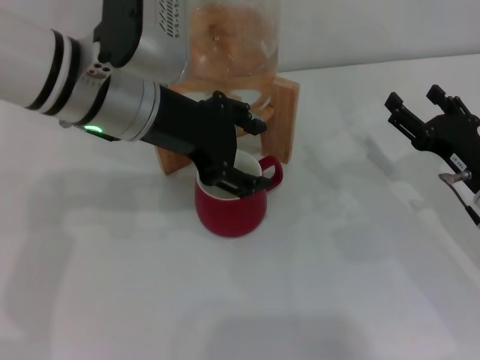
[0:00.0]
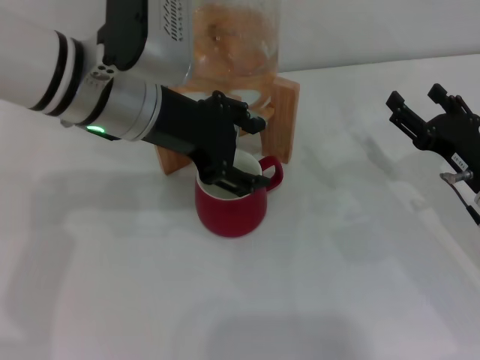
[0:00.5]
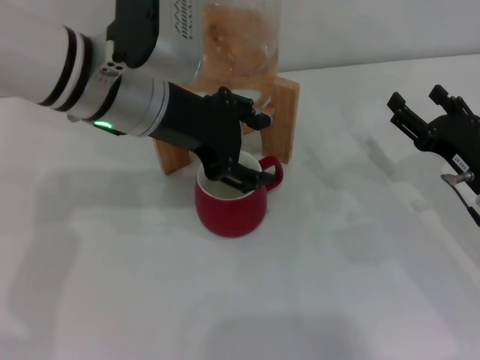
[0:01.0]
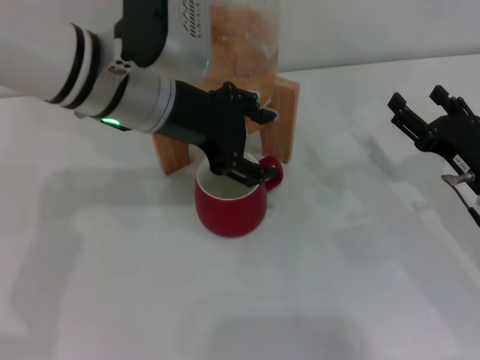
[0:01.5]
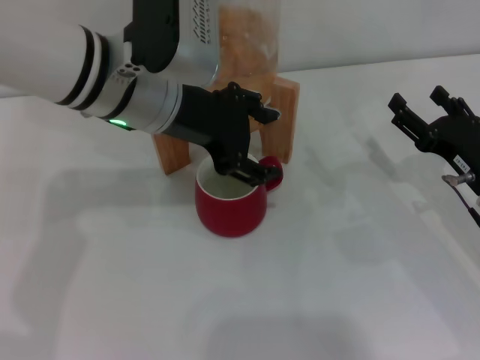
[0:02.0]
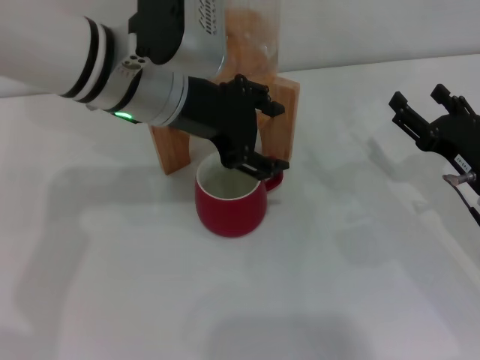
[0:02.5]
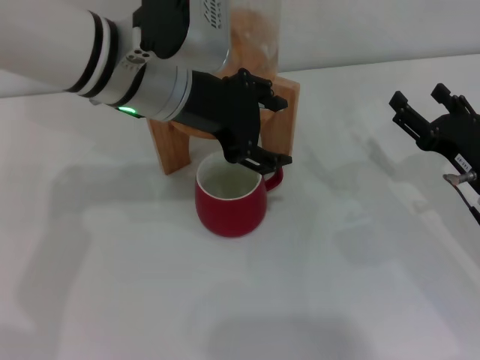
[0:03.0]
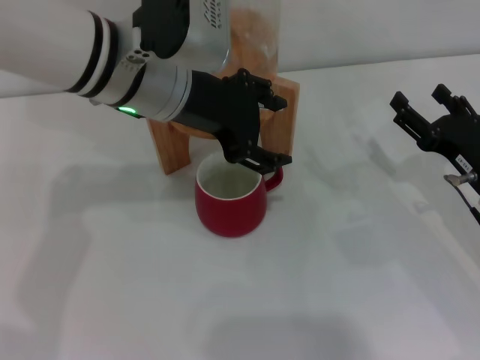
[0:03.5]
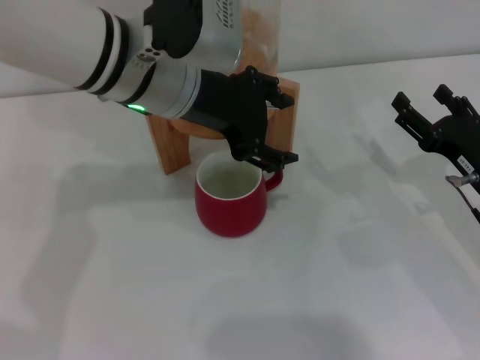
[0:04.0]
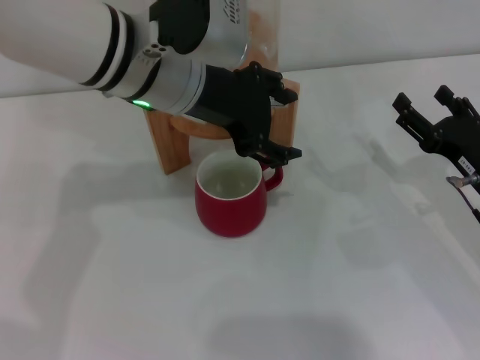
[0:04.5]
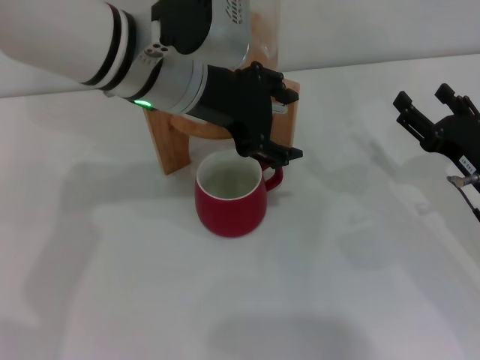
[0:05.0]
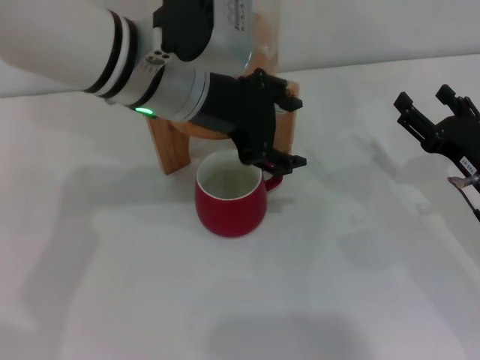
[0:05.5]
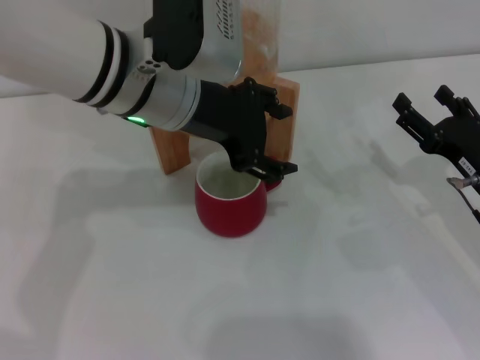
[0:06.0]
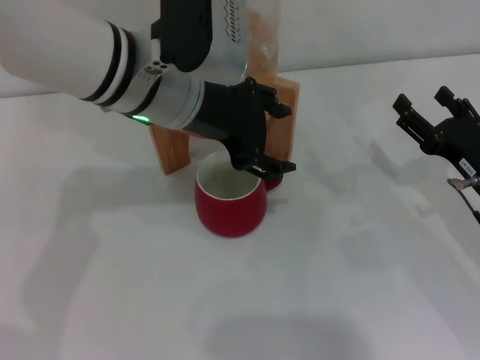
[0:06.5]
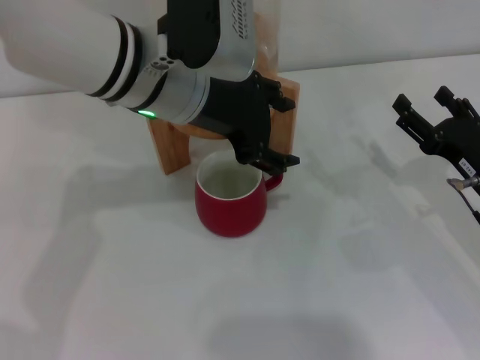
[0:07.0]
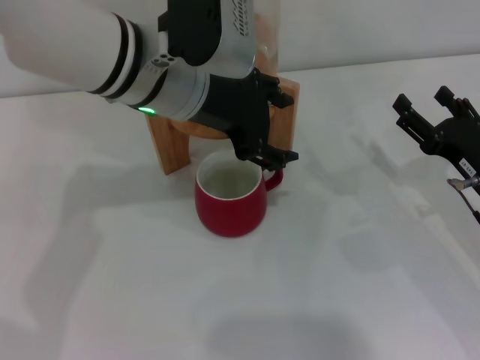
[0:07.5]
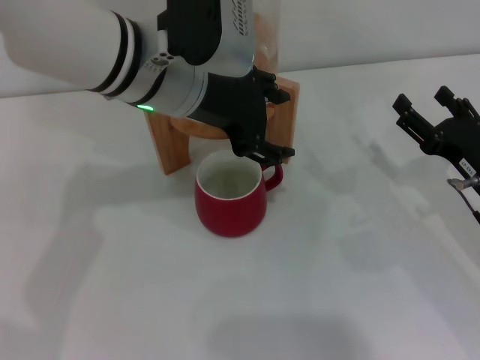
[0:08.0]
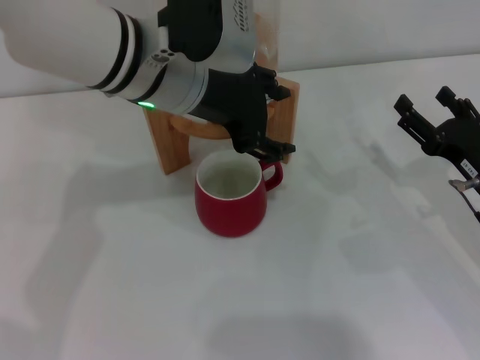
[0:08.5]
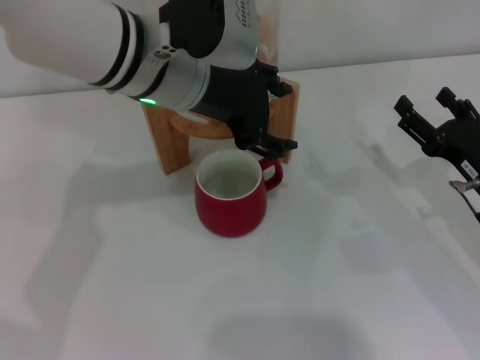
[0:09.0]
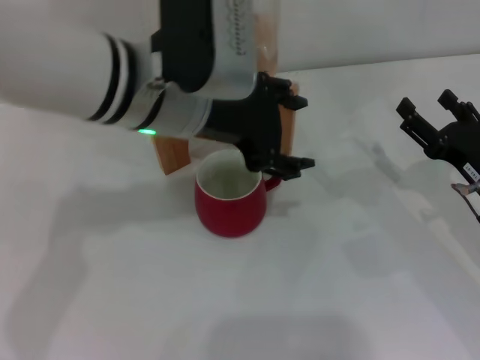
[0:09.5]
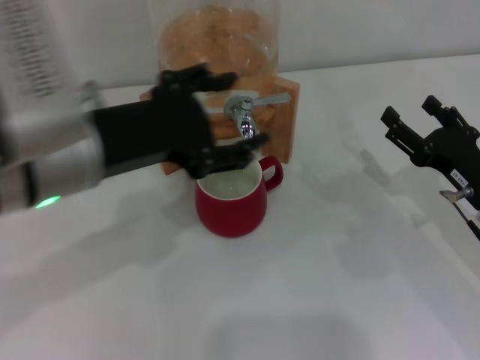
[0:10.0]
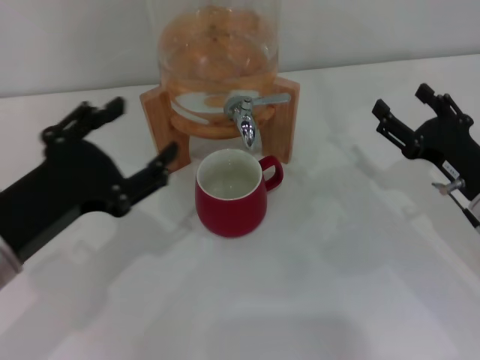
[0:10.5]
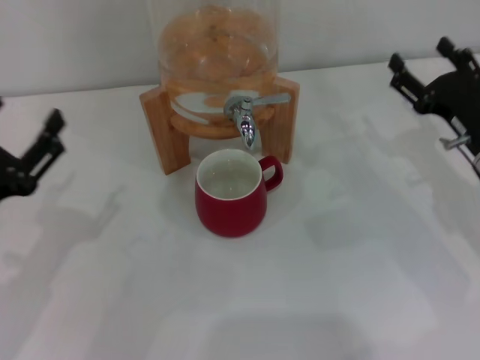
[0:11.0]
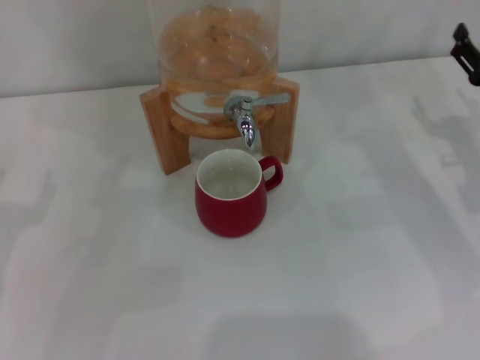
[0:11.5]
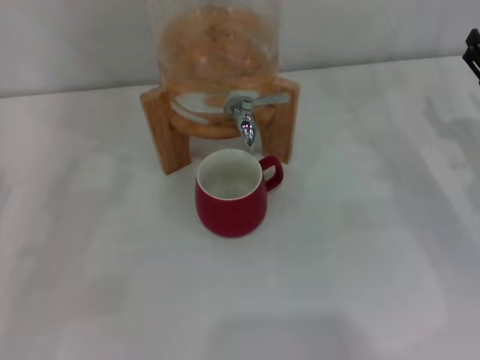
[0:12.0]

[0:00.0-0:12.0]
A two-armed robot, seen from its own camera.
Task of the whole recording: the right gripper pick up the red cup and place it horizontally under the faucet, the left gripper turn on the faucet to fill the cup, and then turn off the faucet.
Step, 0:00.0 to 0:09.5: Close the dispenser valve with the left gripper.
0:00.0 to 0:04.0: The grippers make only small movements.
0:04.0 to 0:08.0: The two grippers keep their place.
0:08.0 to 0:10.0: The left gripper moves to the left and backward, some 15 cm.
0:10.0 to 0:12.0: The right gripper ends up about 5 cm from where it was; the left gripper heads to the left and downward, covering some 20 cm.
